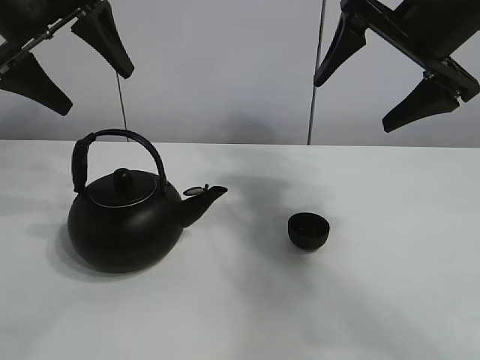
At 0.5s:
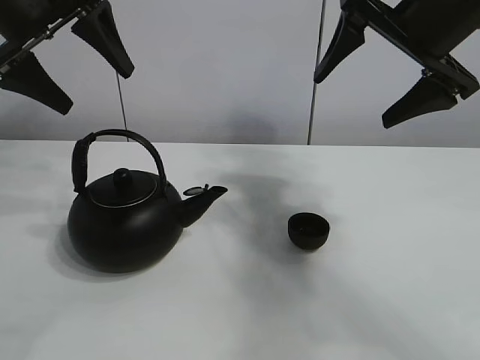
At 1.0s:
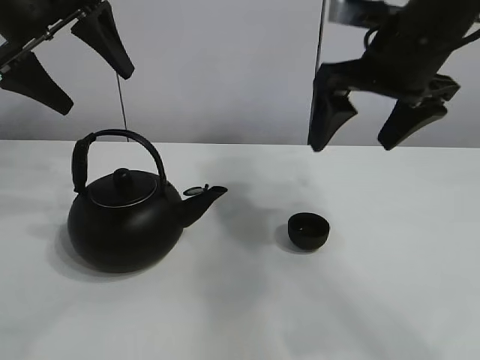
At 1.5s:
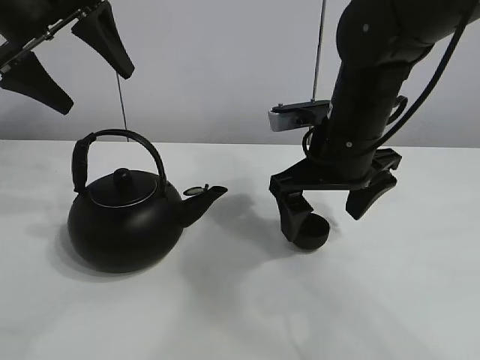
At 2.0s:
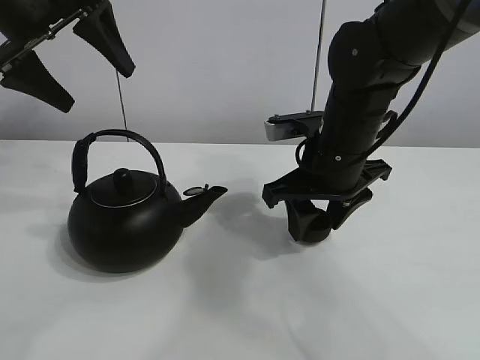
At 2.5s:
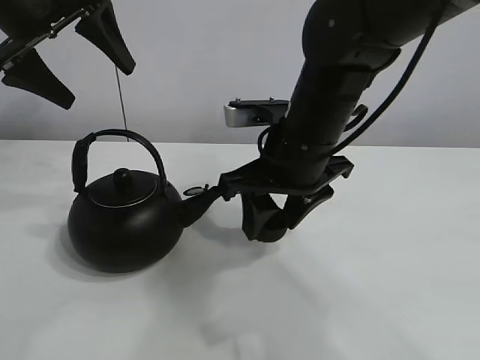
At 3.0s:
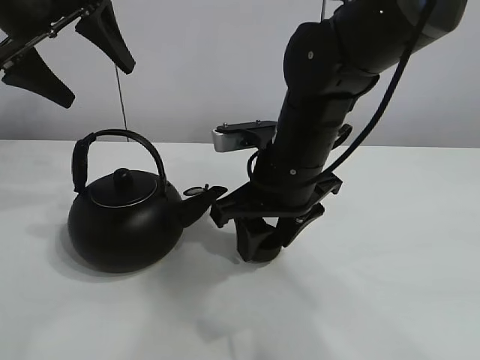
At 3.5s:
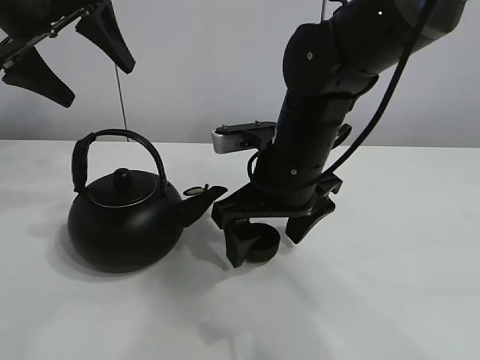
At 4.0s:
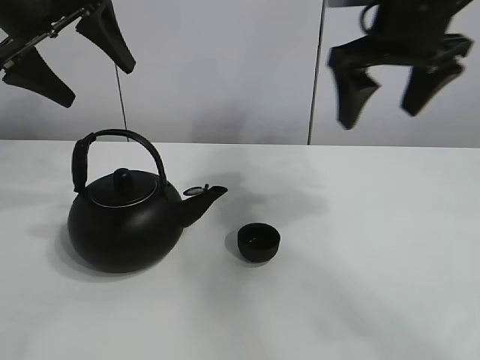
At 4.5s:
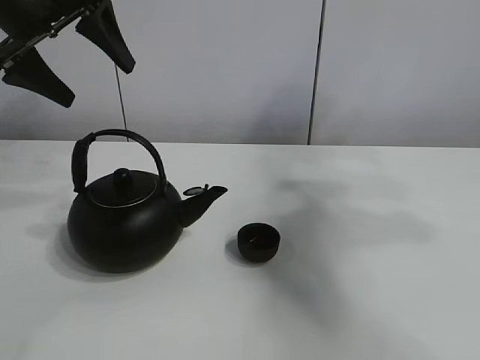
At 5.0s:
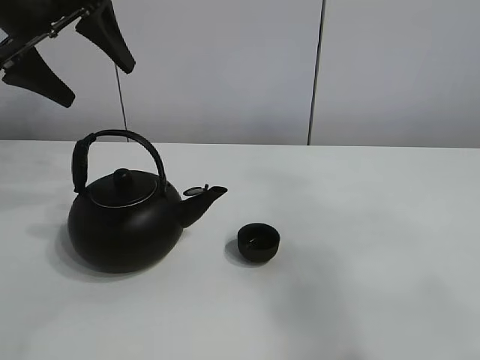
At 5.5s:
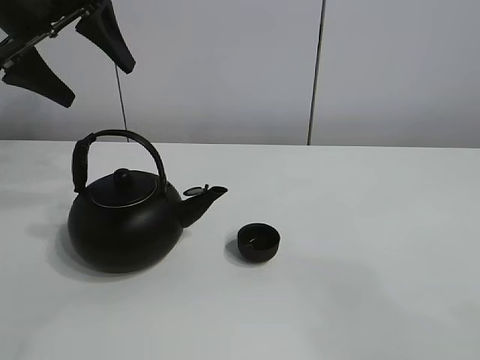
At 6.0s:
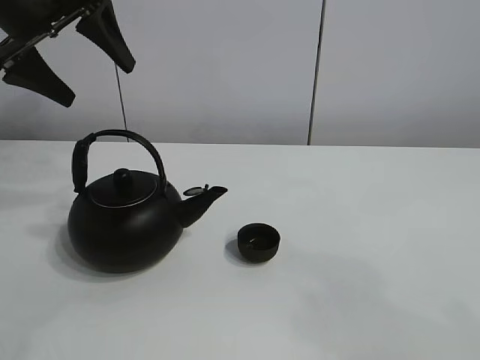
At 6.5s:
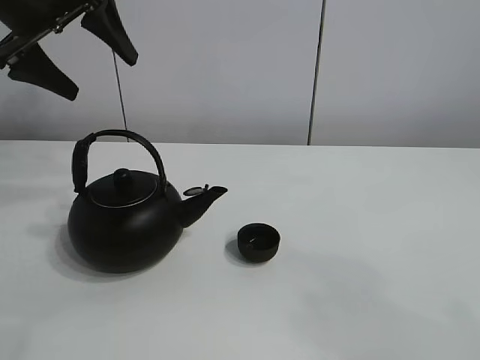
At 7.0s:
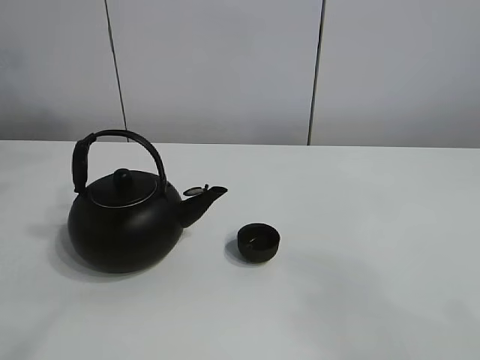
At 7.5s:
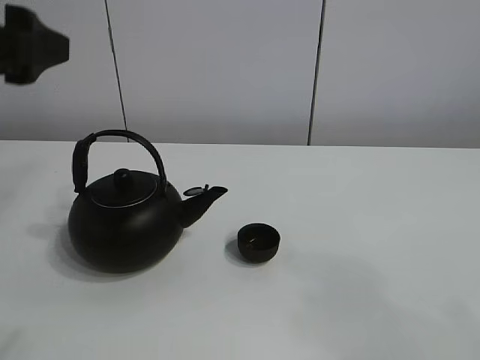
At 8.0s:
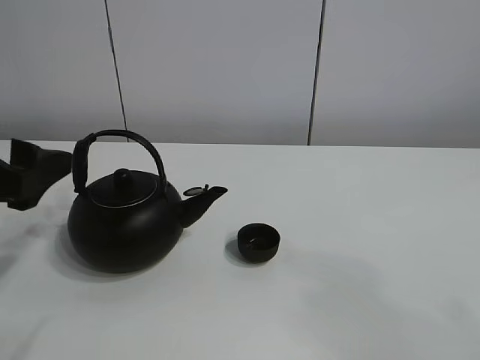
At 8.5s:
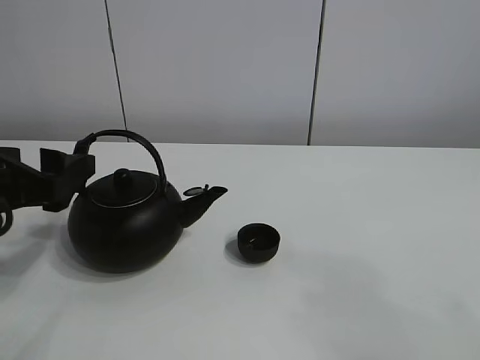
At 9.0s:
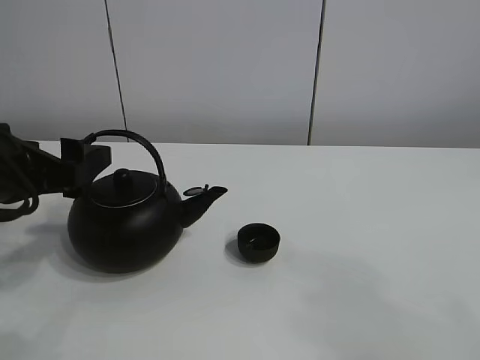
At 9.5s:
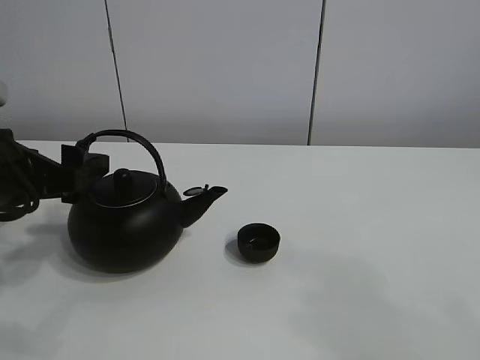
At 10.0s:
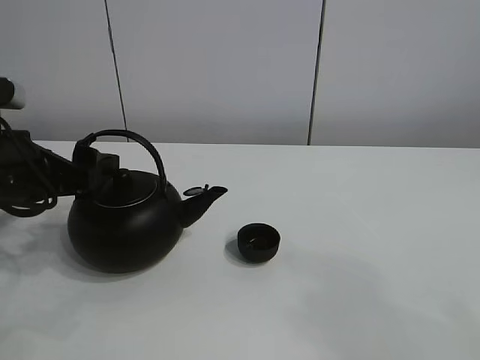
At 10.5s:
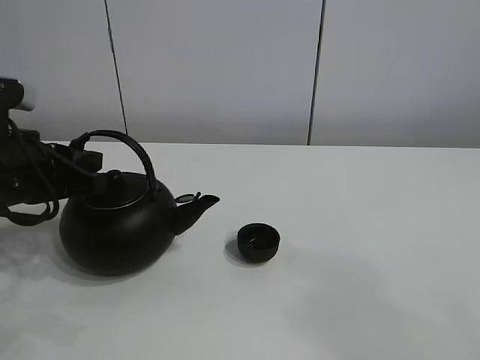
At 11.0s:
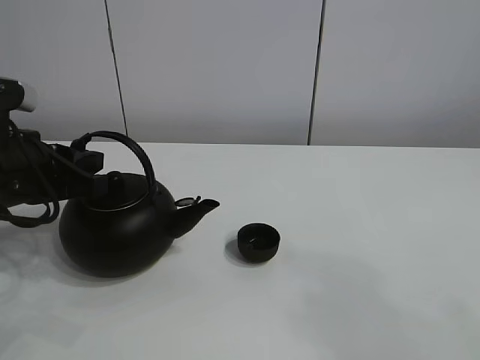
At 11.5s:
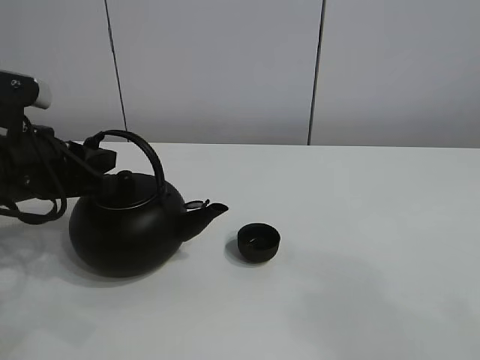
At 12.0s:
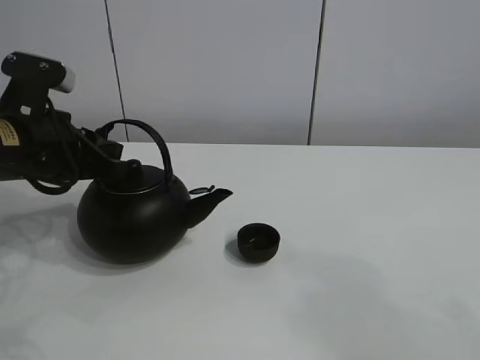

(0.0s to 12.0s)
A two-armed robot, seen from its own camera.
Task of the whole recording: pour tea into the teacup.
Step, 0.0s - 2.0s: Pick up the teacup with the right gripper.
Step, 2.5s - 3.0s: Place the teacup in the center of view with the right gripper.
2.0s - 4.0s: The right gripper heads upward and to the right, covering roughly 15 cm, and opens.
4.0s - 6.0s: The right gripper goes approximately 40 cm backward.
6.0s - 8.0s: The left gripper shifts approximately 20 cm backward and downward.
8.0s - 10.0s: The left gripper heads forward, covering approximately 5 cm.
10.0s - 12.0s: The left gripper closes its fingers.

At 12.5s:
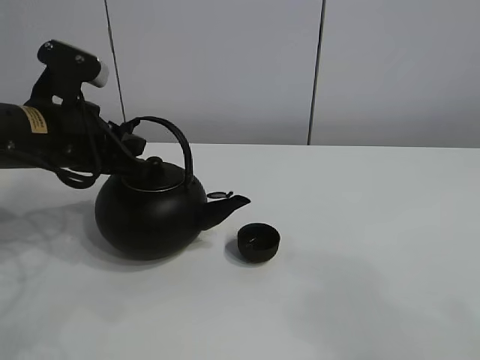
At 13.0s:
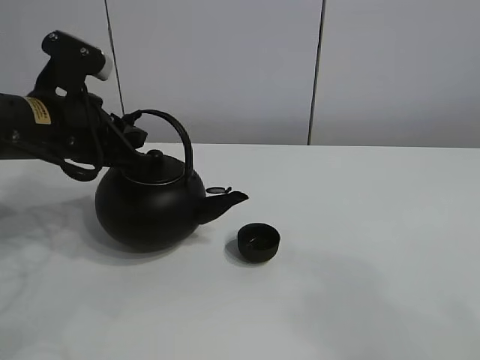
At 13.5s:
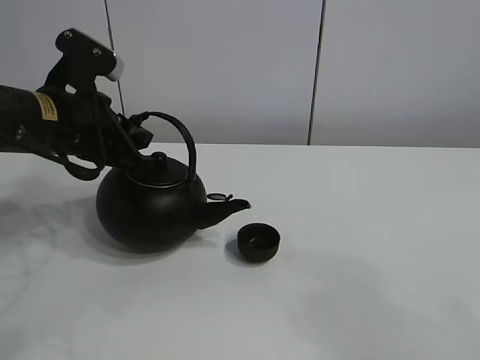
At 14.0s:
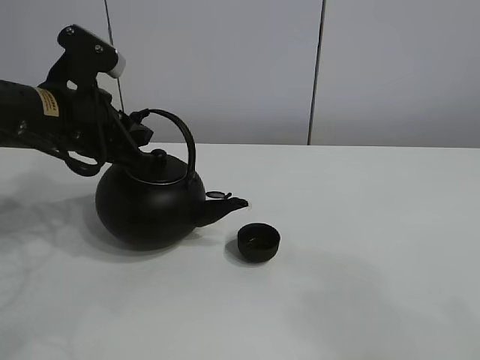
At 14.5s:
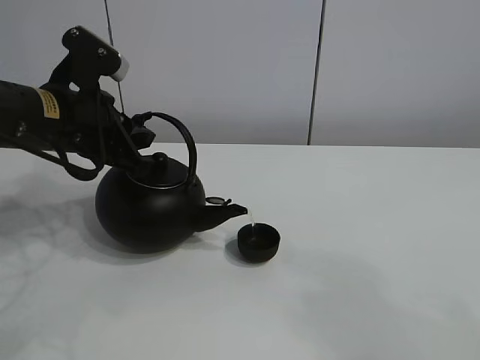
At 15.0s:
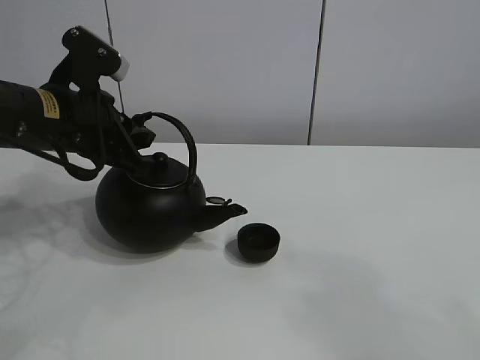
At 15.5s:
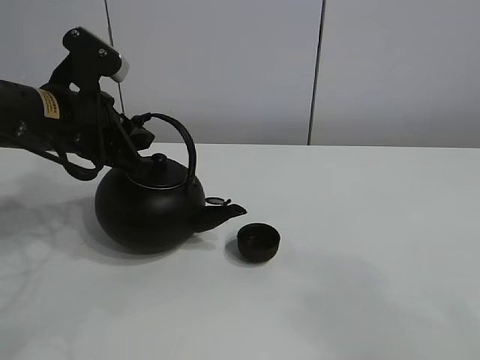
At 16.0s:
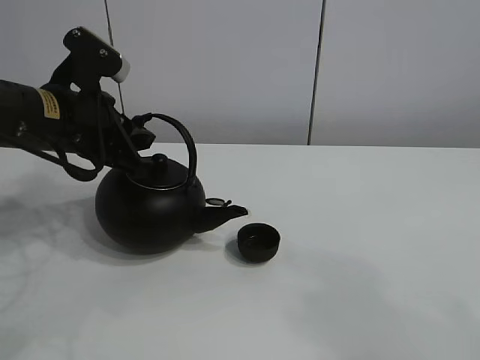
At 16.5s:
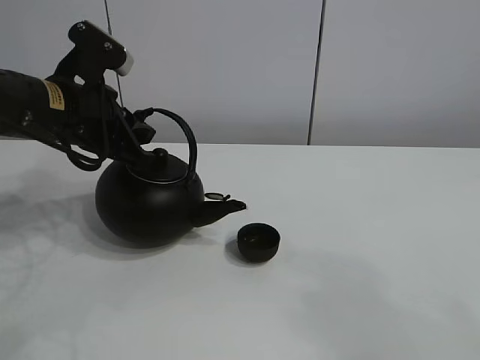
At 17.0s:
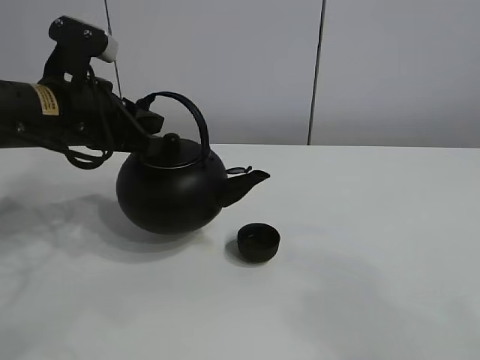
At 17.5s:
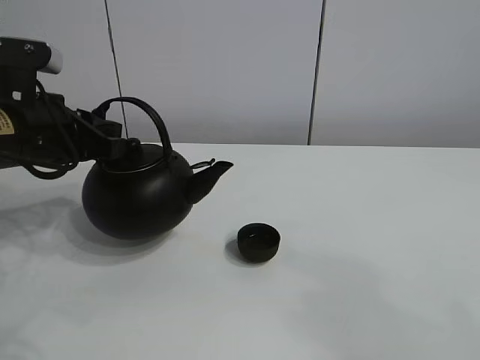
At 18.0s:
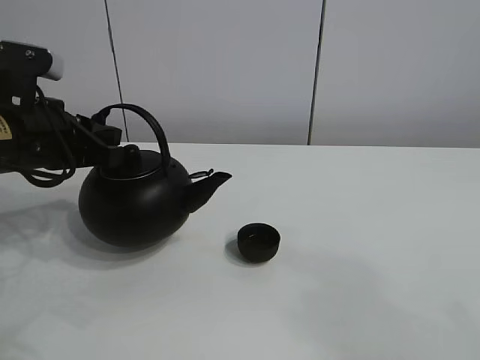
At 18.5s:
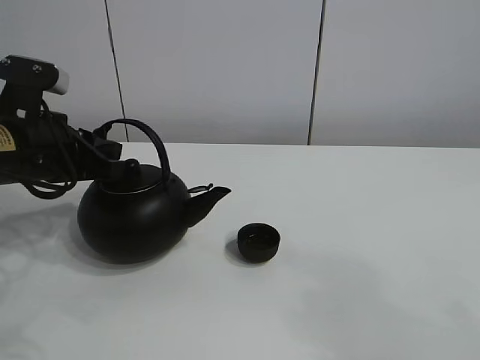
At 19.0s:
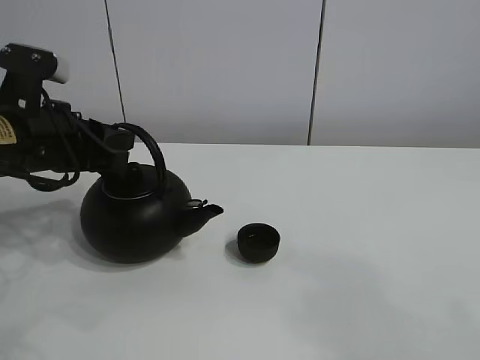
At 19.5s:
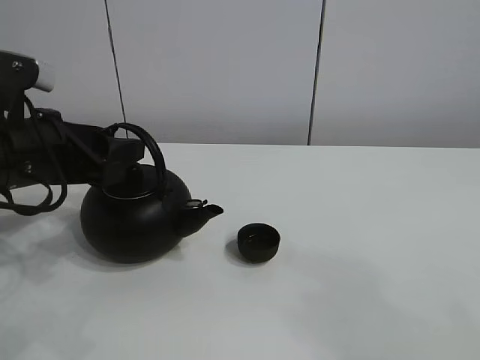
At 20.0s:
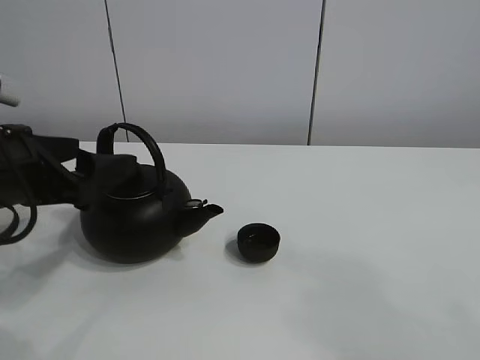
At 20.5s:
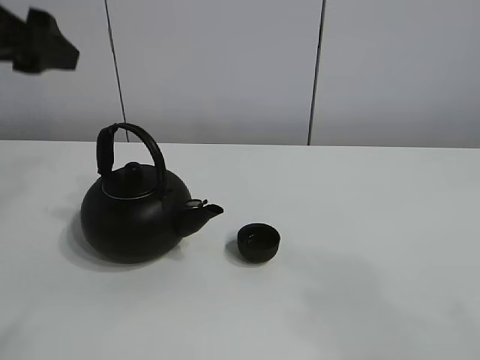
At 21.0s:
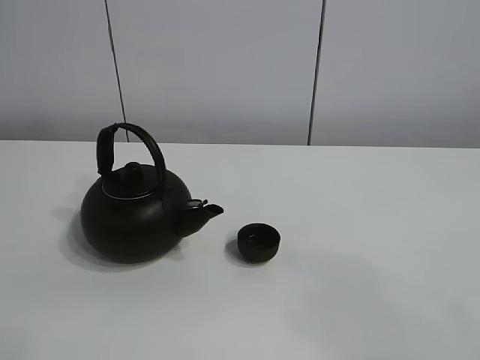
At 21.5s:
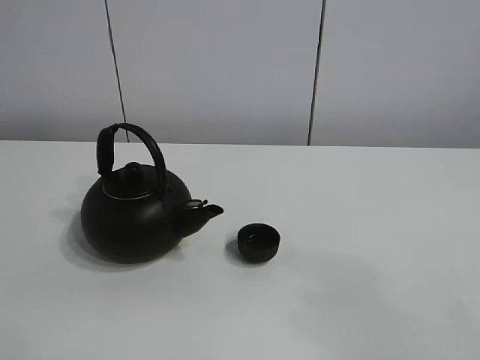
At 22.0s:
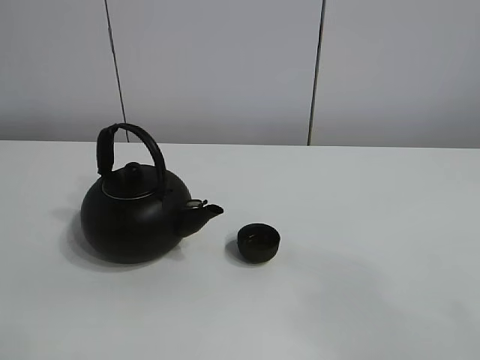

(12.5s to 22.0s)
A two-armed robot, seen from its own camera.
Task of the whole recording: pour tea into the teacup.
Step, 13.0s - 16.5s: Pour tea into the teacup with the left gripper.
12.5s - 14.5s: The grippers make only small movements.
14.5s - 16.5s: The two grippers keep their place.
16.5s - 18.0s: The left gripper ends up approximately 5 cm from where it was.
18.0s - 20.0s: The left gripper heads backward, covering some 5 cm, and opens.
20.0s - 22.0s: The left gripper goes roughly 30 cm backward and upward.

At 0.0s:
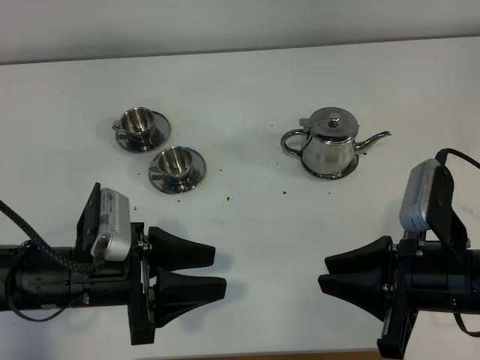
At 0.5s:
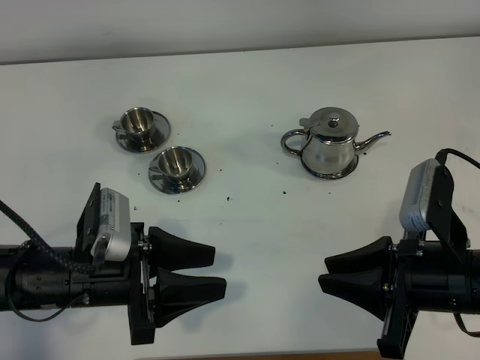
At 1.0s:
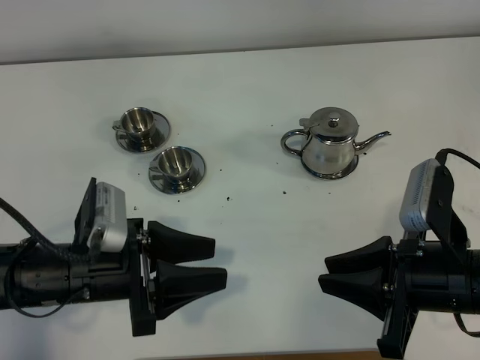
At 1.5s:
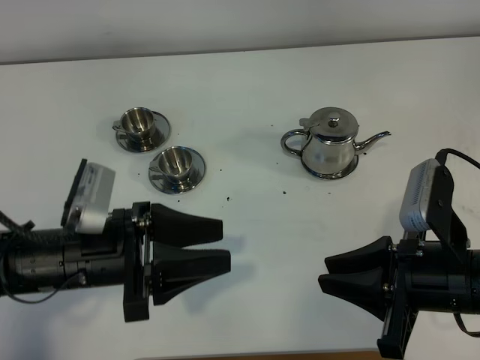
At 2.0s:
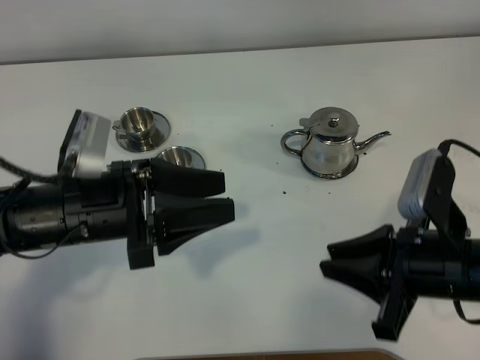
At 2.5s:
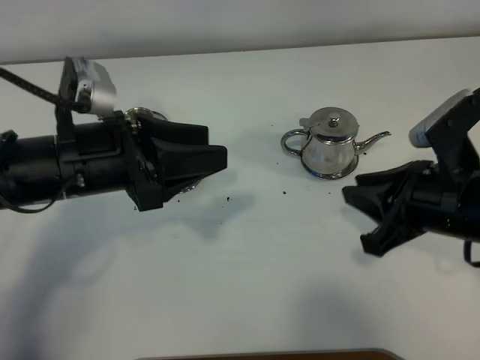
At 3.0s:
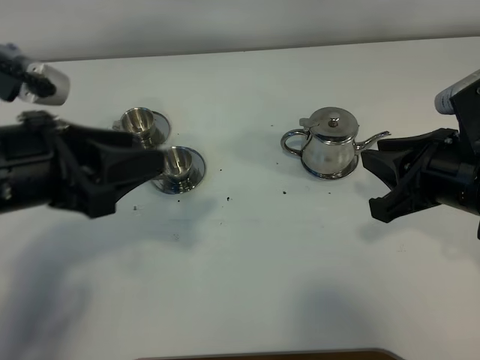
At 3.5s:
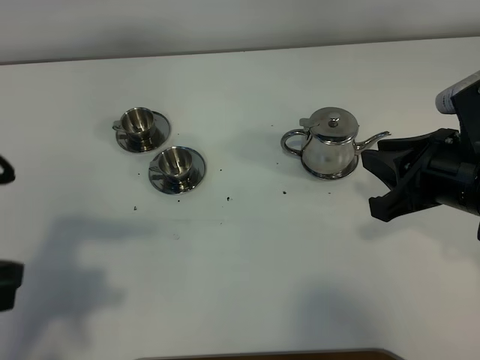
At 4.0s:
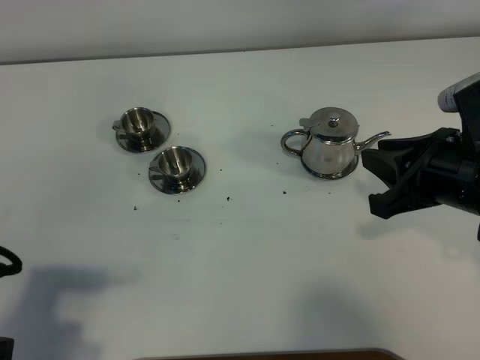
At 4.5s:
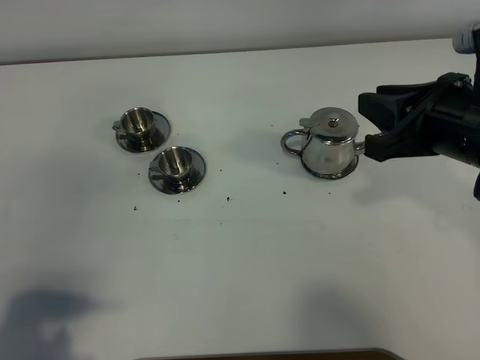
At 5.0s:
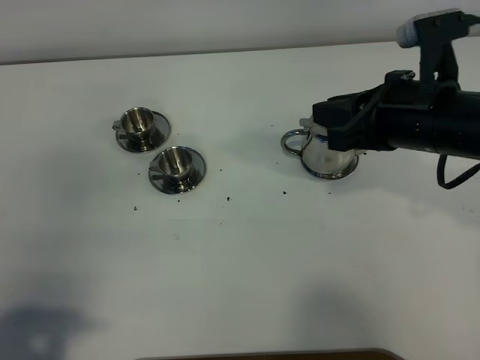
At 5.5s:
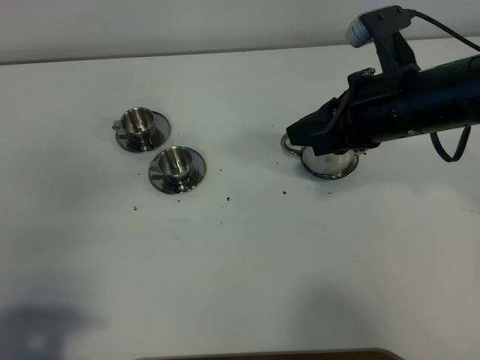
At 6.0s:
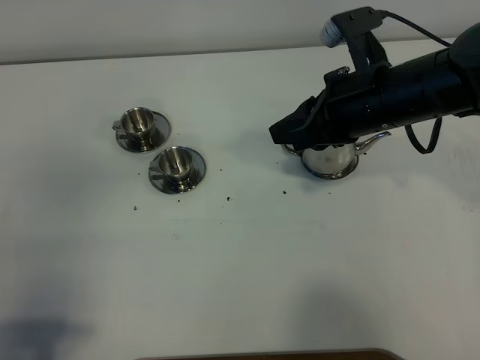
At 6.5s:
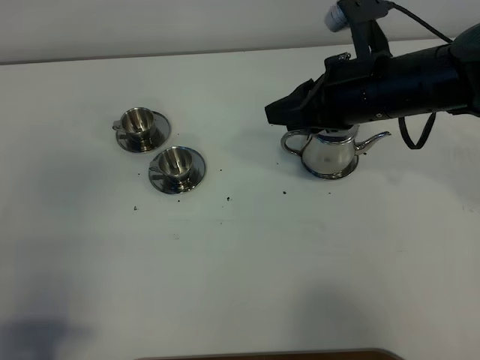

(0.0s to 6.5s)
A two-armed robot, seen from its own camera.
Task of the whole recording: grasp the stainless steel teapot and pour the tea into the two stainless steel teacups one by one, put the stainless steel teapot back in its original place.
0.0s - 2.0s: The left gripper is displaced upward by roughly 5 cm.
2.0s - 4.5s: The right gripper shifts roughly 10 cm upward and forward; the left gripper travels backward and to the left by approximately 20 cm.
4.5s - 6.5s: The right gripper is displaced to the left and forward by roughly 10 cm.
